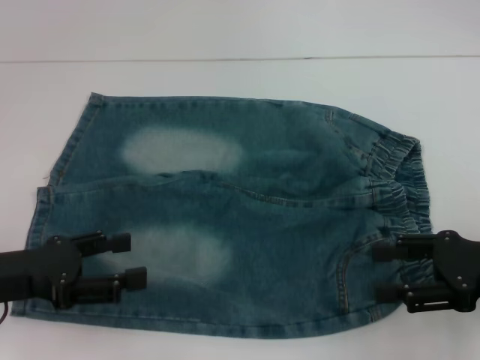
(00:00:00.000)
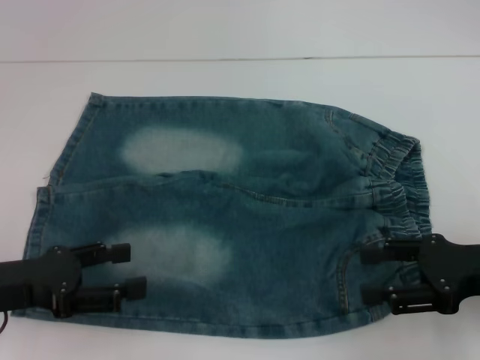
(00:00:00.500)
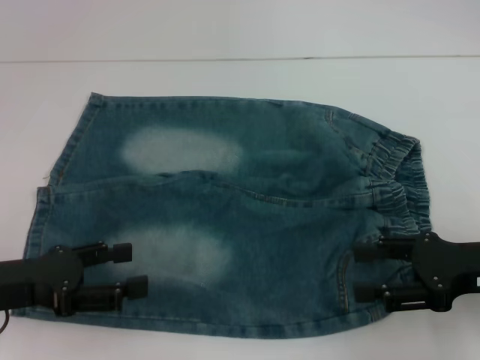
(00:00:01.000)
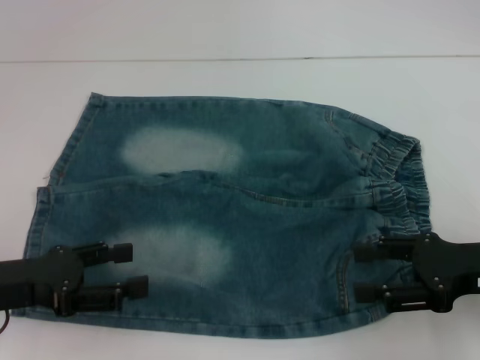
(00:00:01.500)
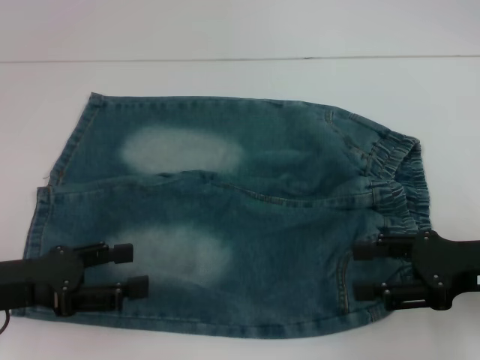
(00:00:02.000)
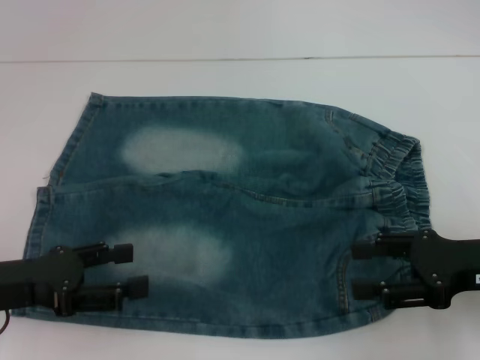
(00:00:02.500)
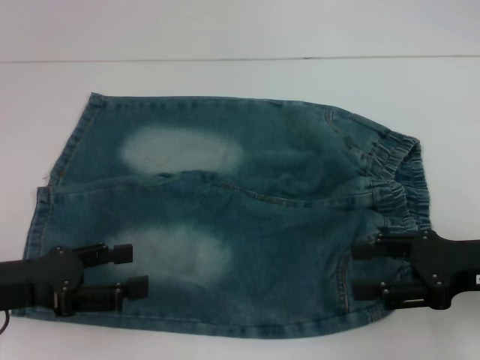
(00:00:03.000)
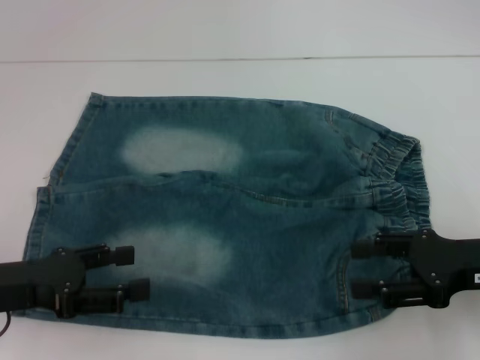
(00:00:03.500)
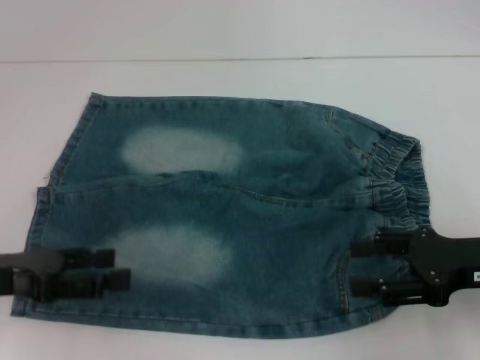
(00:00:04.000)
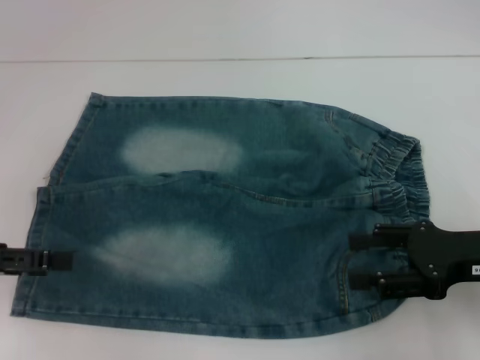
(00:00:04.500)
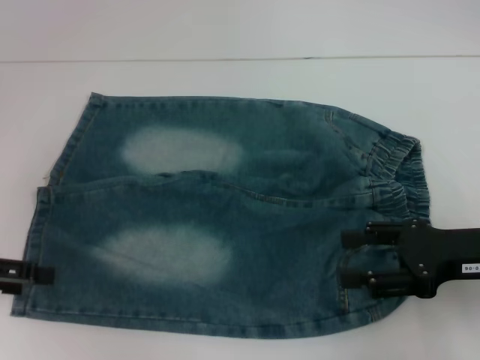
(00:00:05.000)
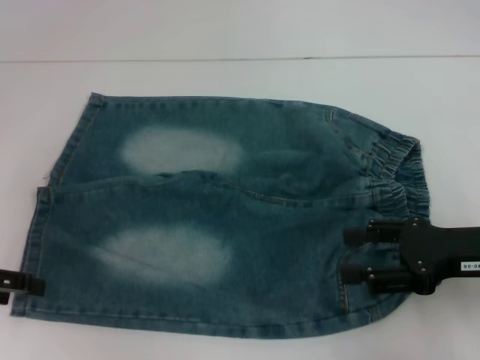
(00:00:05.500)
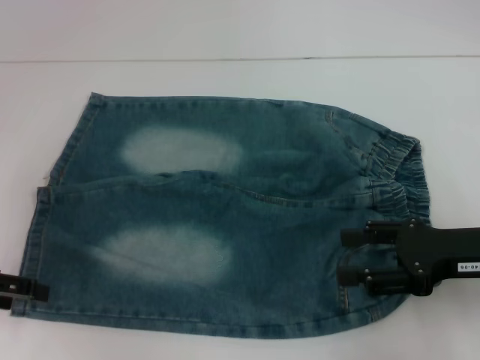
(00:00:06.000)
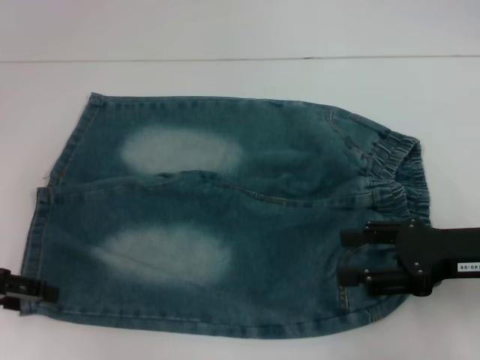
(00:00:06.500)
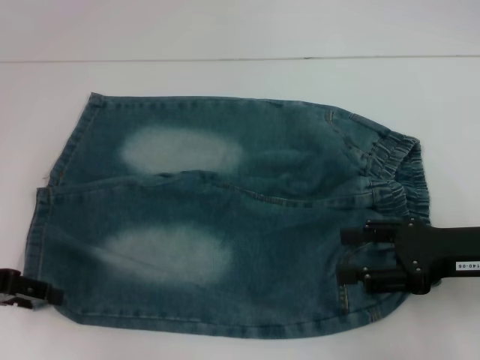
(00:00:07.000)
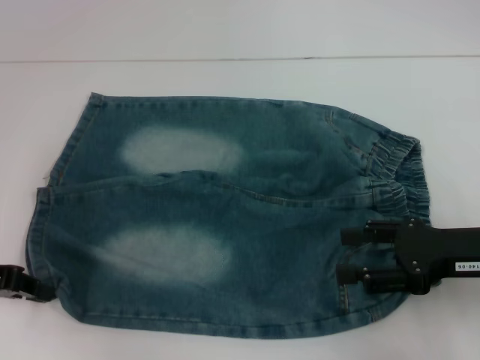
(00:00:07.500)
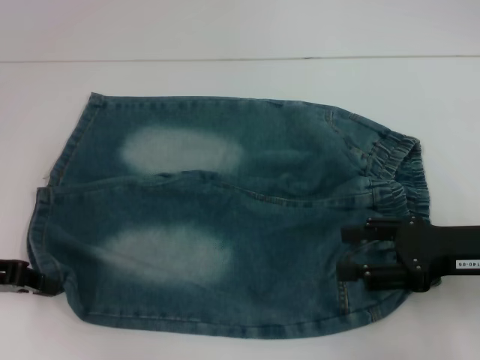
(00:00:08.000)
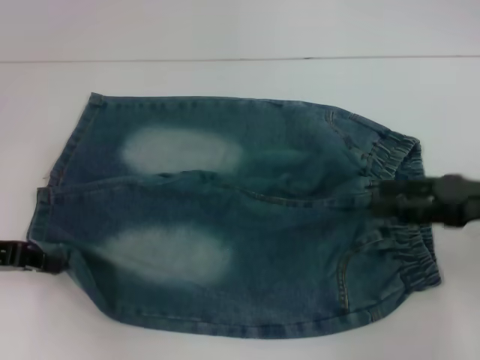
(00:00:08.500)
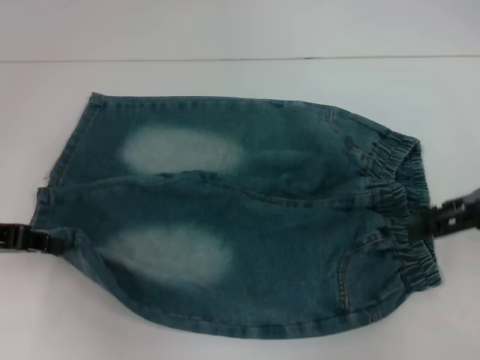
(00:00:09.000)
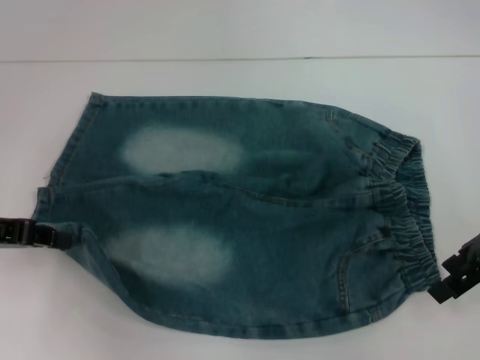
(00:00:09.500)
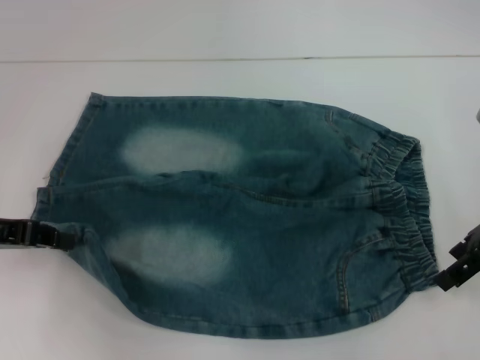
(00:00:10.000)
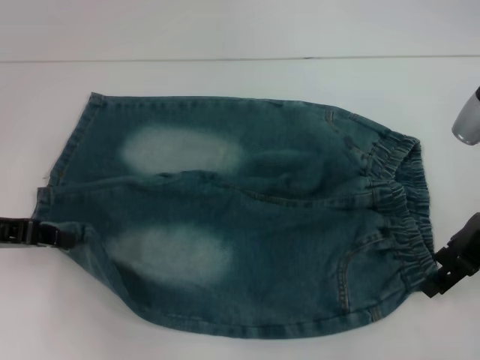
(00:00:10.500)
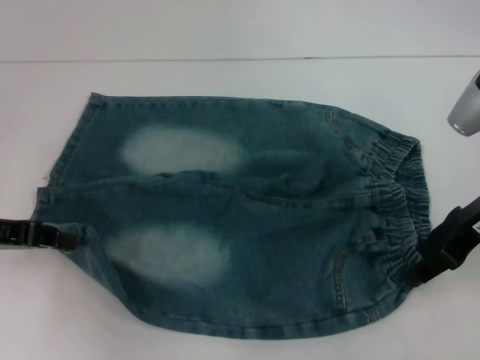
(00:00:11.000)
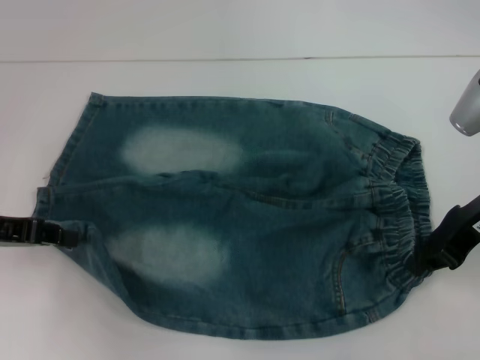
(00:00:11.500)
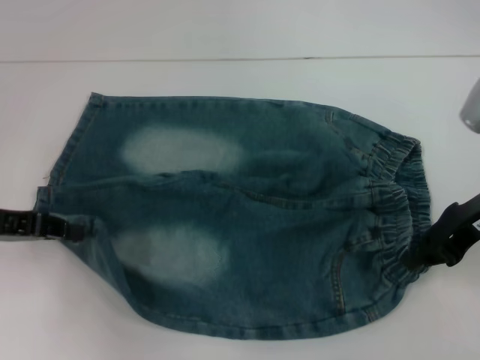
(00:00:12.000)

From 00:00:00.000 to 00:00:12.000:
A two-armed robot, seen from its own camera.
Step, from 00:00:00.000 to 00:00:07.000: Grab the lower left pant leg with your left hand.
Step, from 00:00:07.500 to 00:00:11.500: Hold the lower right waistband with your right hand.
From 00:00:00.000 to 00:00:04.000: There are only small adjustments of the grippers.
From 00:00:04.000 to 00:00:06.000: The left gripper moves to the left, roughly 5 cm.
From 00:00:06.000 to 00:00:08.000: The left gripper closes up.
From 00:00:08.000 to 00:00:10.000: The right gripper shifts about 10 cm forward and upward.
From 00:00:10.000 to 00:00:12.000: The right gripper closes.

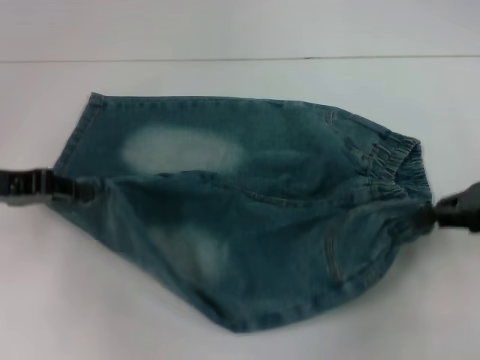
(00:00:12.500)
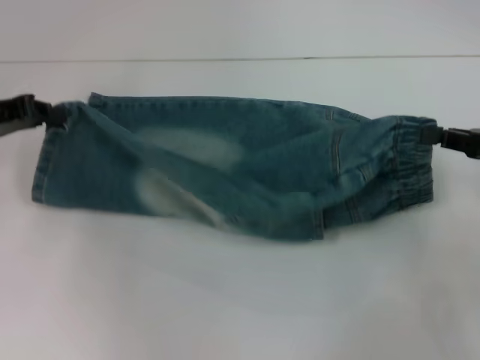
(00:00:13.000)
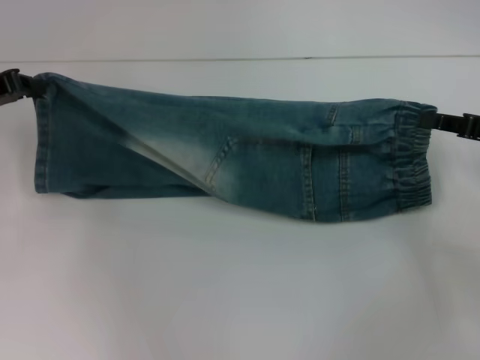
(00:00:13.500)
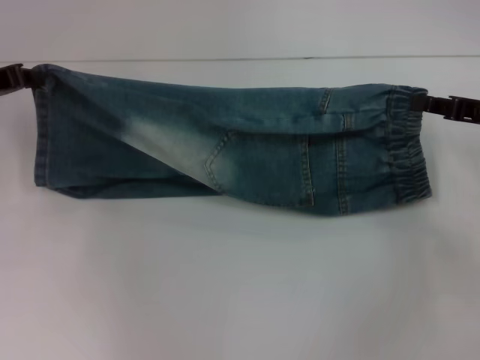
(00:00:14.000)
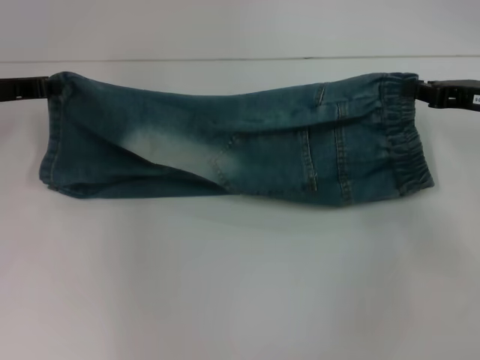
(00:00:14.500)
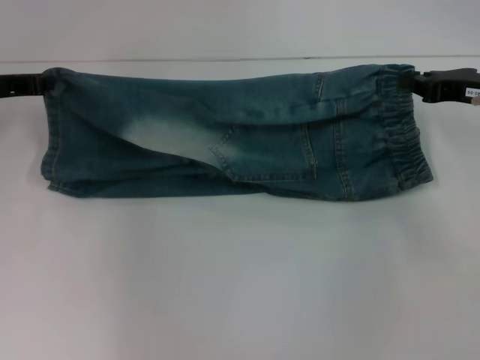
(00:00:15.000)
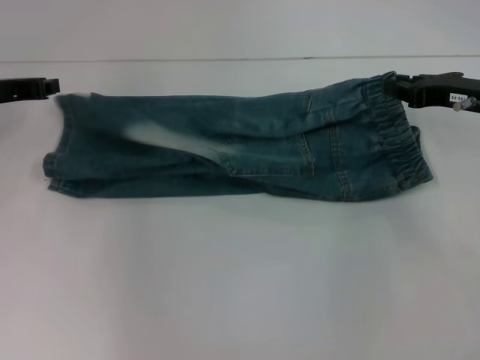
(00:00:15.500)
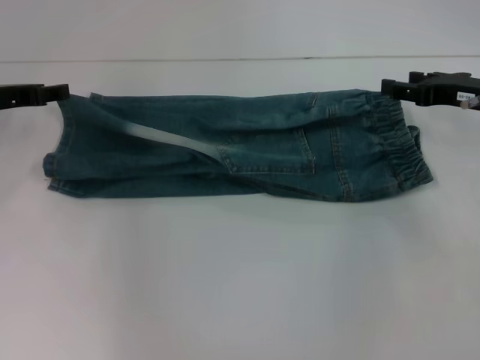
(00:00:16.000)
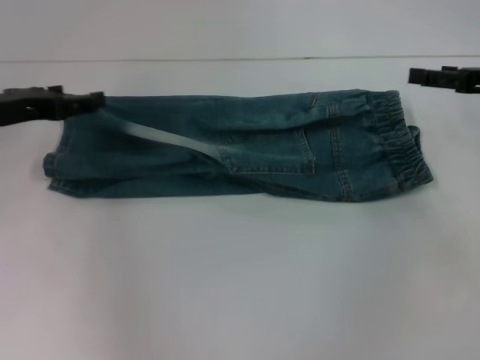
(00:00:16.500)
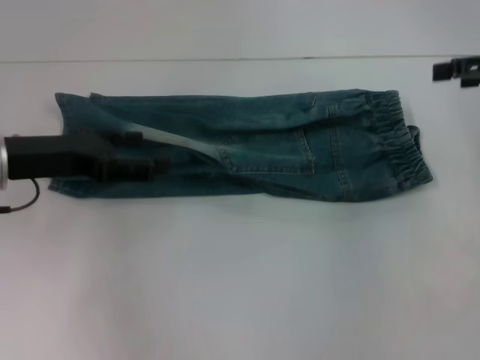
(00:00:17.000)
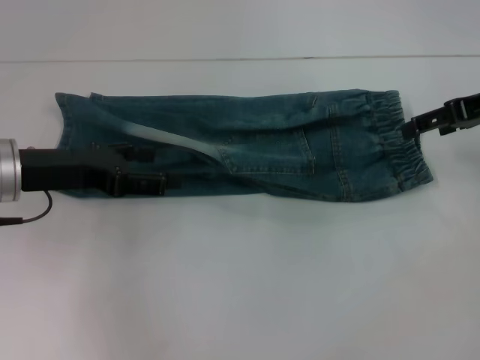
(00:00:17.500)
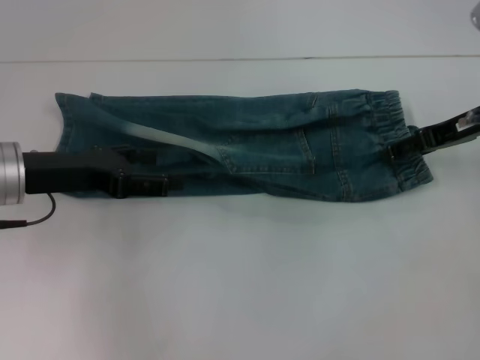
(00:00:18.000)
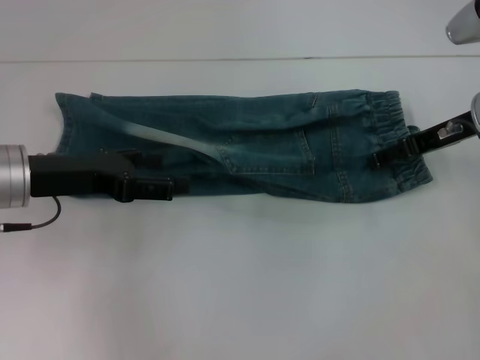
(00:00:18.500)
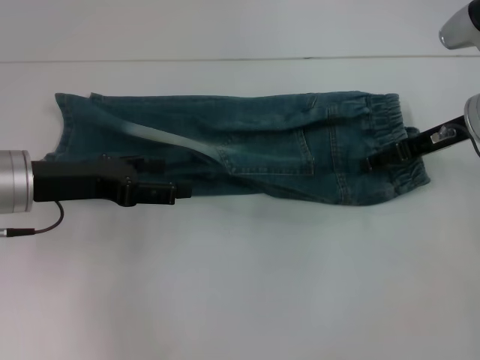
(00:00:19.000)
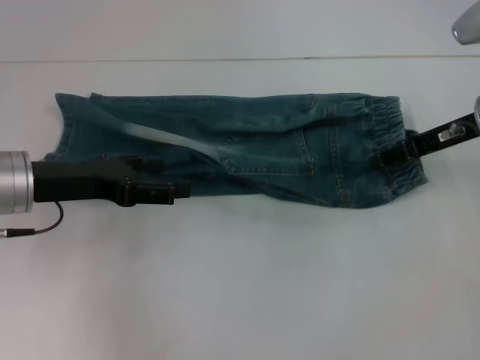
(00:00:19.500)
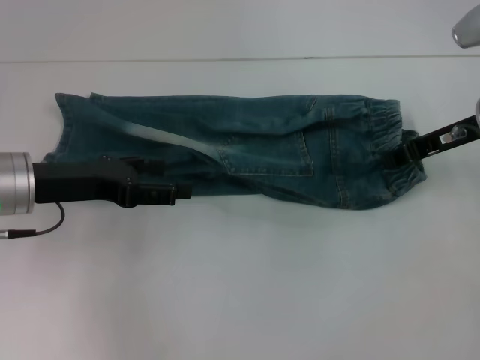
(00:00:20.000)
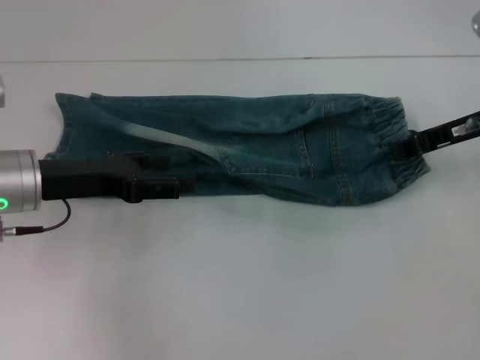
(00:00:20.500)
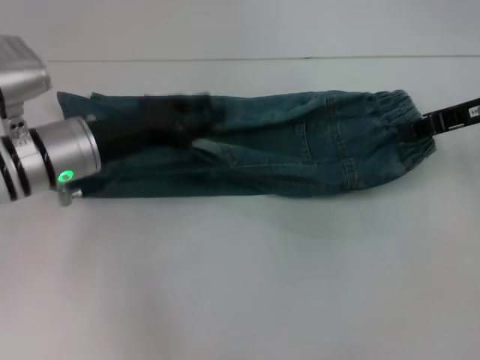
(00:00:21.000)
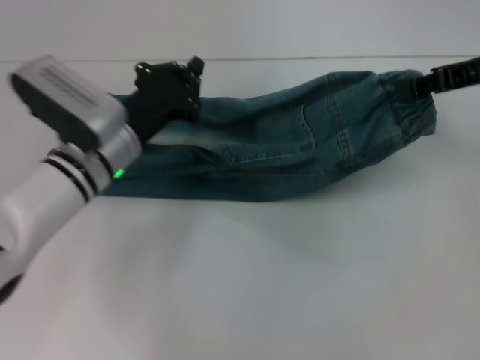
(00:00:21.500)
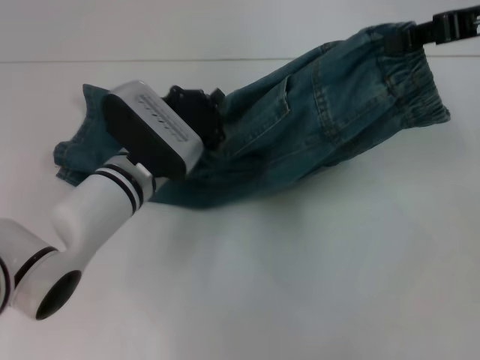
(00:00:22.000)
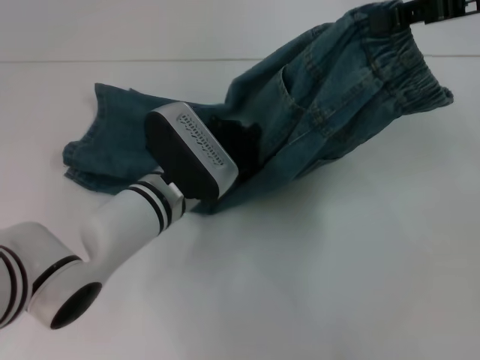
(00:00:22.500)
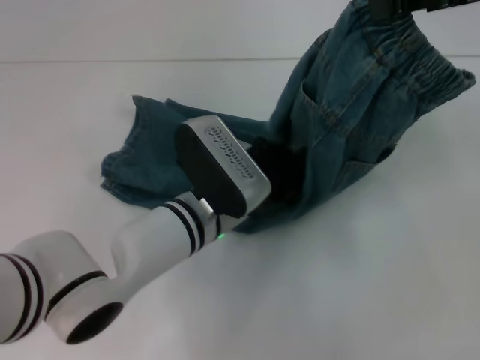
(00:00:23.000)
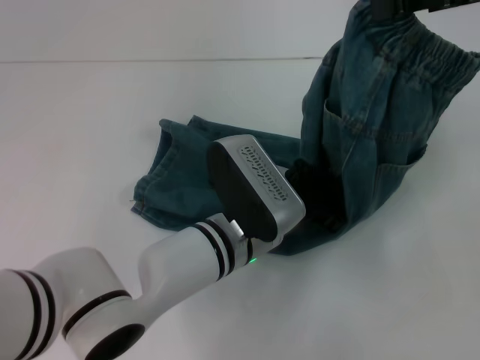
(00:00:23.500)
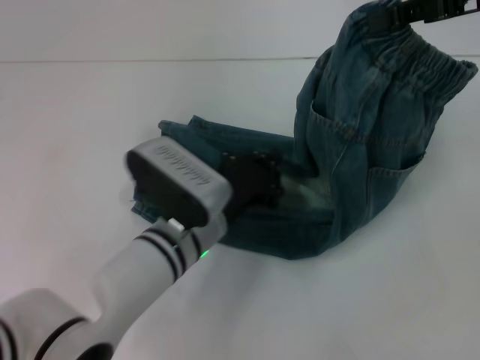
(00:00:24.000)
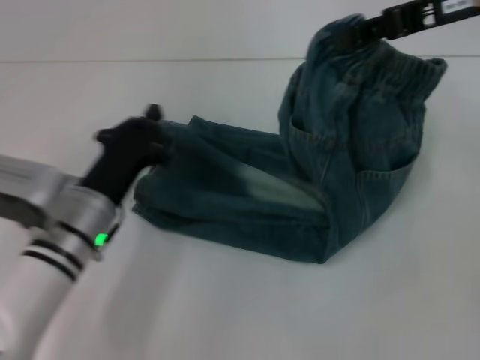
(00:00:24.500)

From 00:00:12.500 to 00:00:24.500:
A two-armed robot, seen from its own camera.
Step, from 00:00:12.500 to 00:00:16.500: Fold upward with your right hand.
Step, from 00:00:17.000 to 00:00:19.500: Grab the waistband with your right hand.
Step, from 00:00:20.000 to 00:00:23.500: Press the middle of the pants with your left hand.
From 00:00:12.500 to 00:00:14.500: The two grippers go about 10 cm forward.
From 00:00:14.500 to 00:00:16.500: The left gripper opens; the right gripper opens up.
From 00:00:16.500 to 00:00:18.500: The right gripper moves to the left, roughly 10 cm. Meanwhile the left gripper changes place by approximately 5 cm.
From 00:00:18.500 to 00:00:20.500: The right gripper closes up.
From 00:00:20.500 to 00:00:22.500: The right gripper moves upward, some 15 cm. Meanwhile the left gripper travels to the right and downward by some 15 cm, and closes.
From 00:00:22.500 to 00:00:24.500: The left gripper moves to the left, roughly 10 cm.

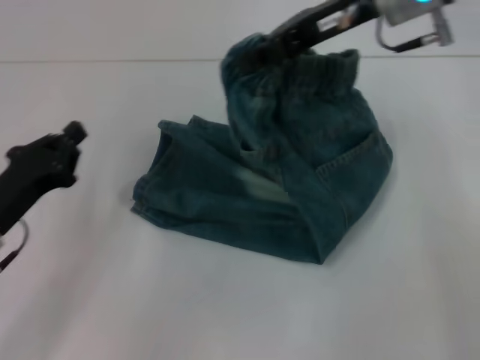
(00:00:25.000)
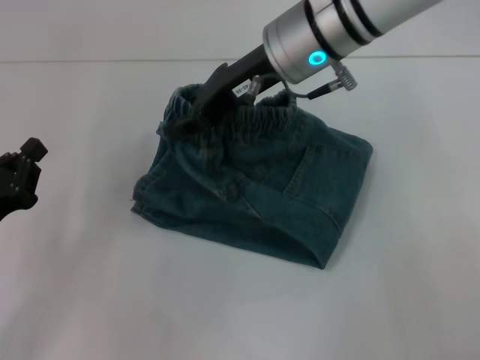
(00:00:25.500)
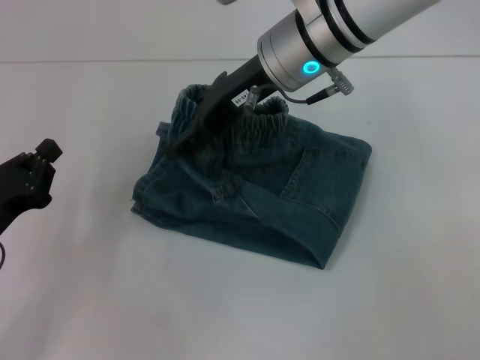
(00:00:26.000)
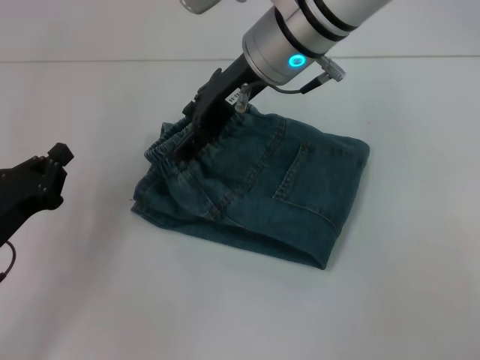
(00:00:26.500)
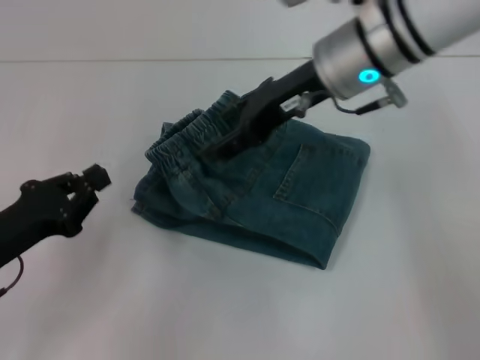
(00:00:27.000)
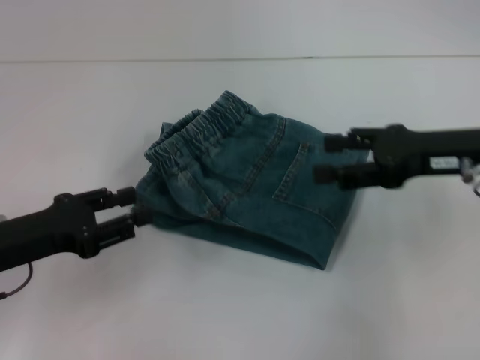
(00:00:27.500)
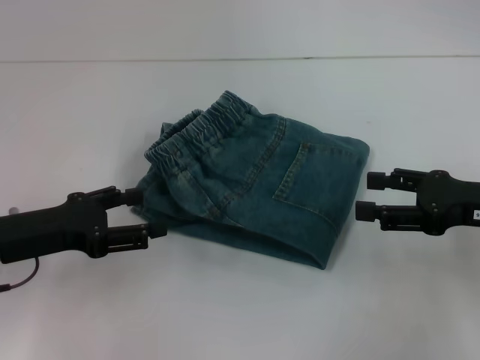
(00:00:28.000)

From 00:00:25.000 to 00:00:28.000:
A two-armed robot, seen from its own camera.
Step, from 00:00:25.000 to 00:00:26.500: Fold to the left with your right hand.
From 00:00:25.000 to 00:00:26.500: The right gripper shifts about 10 cm to the left, and opens up.
From 00:00:26.500 to 00:00:28.000: The right gripper heads to the right, backward and downward, covering about 30 cm; the left gripper shifts by about 5 cm, and opens up.
